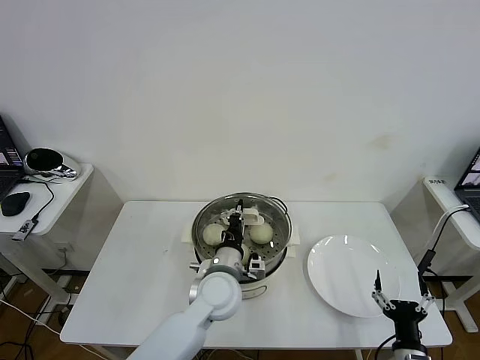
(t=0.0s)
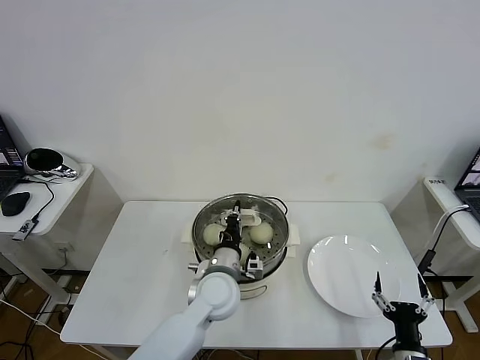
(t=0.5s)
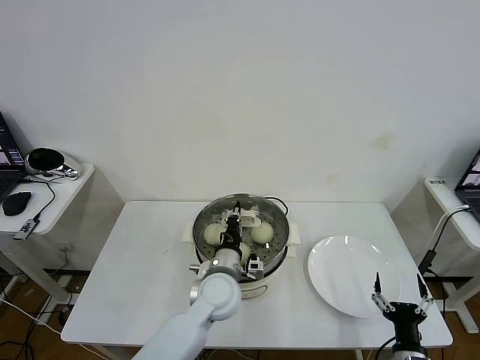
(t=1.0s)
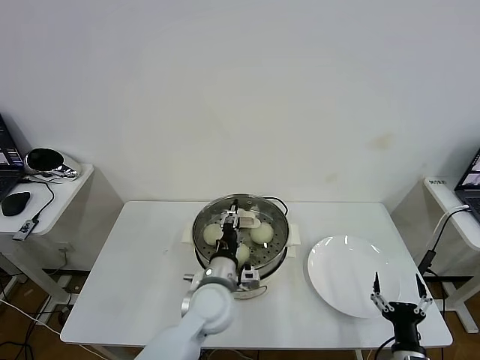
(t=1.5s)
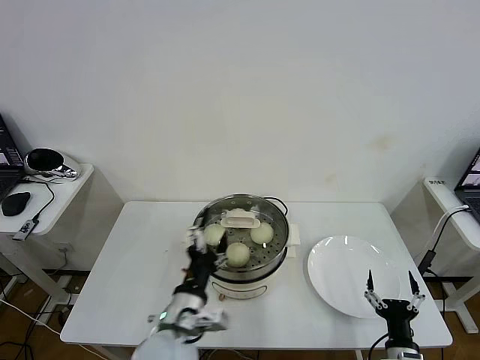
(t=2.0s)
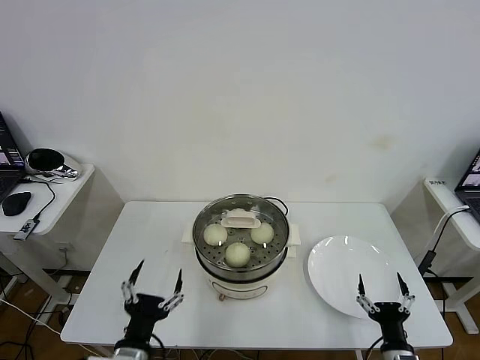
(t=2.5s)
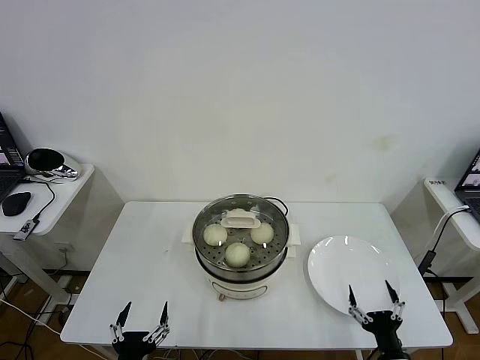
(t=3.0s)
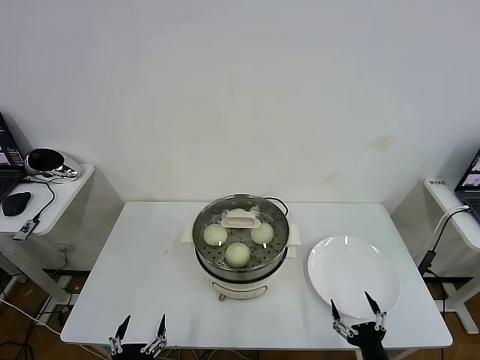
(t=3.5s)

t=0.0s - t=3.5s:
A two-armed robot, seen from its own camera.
Task of the whole recording: take steamed baozi put them in steamer then cover it.
t=0.0s - t=2.0s: The left gripper heads backward and to the left, covering about 15 cm, and opens.
t=2.0s - t=3.5s: The left gripper travels backward, to the left and downward by about 25 cm.
